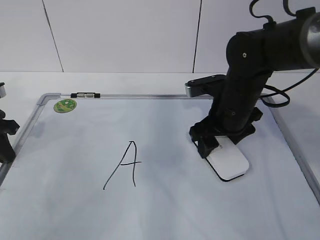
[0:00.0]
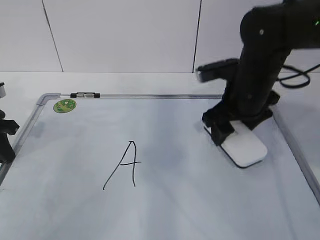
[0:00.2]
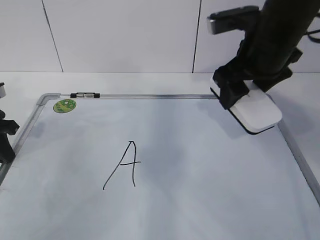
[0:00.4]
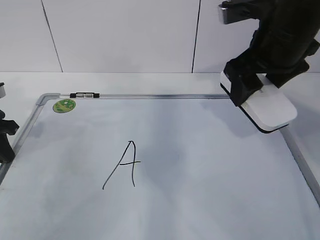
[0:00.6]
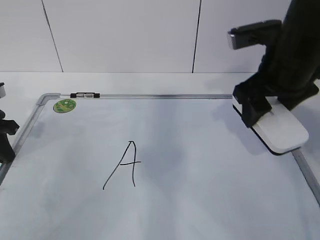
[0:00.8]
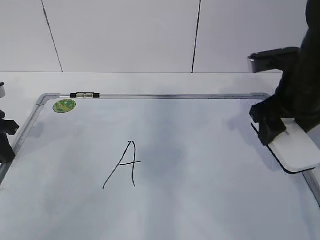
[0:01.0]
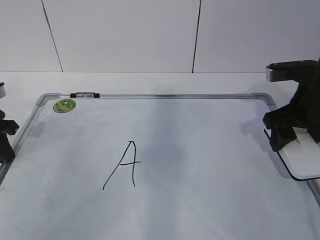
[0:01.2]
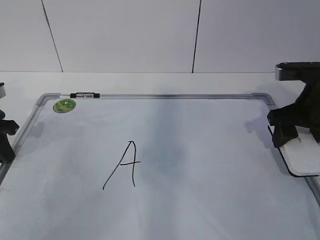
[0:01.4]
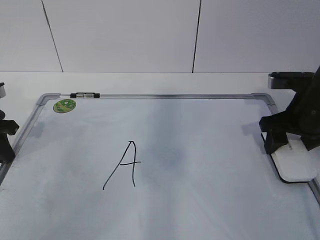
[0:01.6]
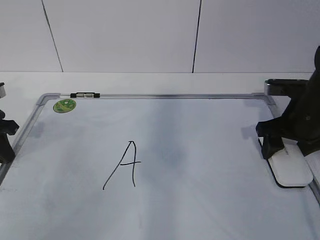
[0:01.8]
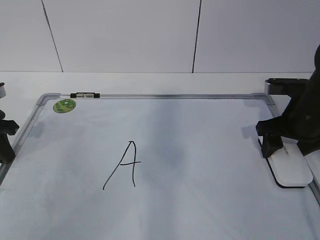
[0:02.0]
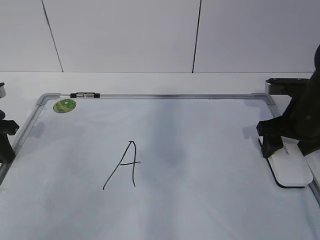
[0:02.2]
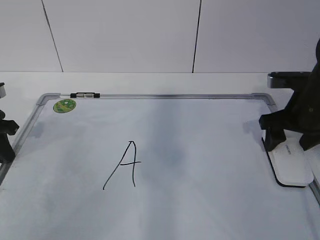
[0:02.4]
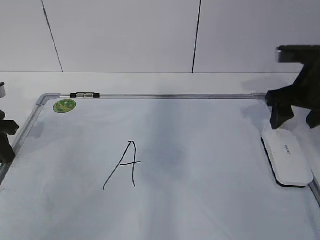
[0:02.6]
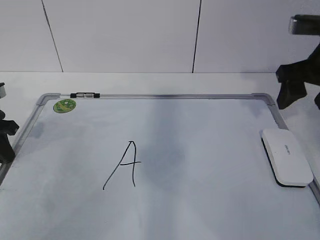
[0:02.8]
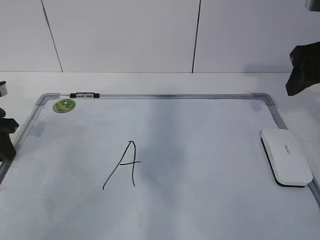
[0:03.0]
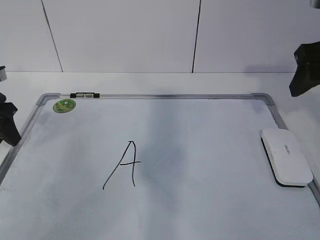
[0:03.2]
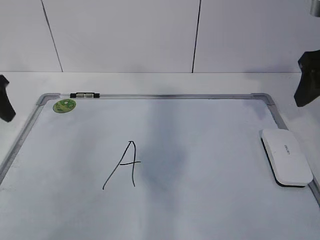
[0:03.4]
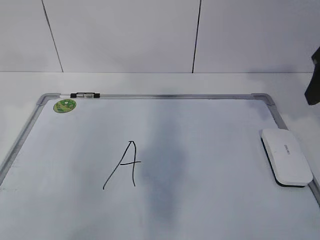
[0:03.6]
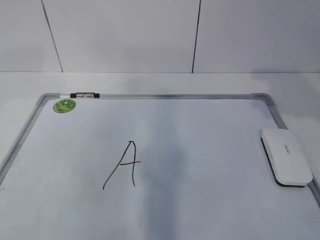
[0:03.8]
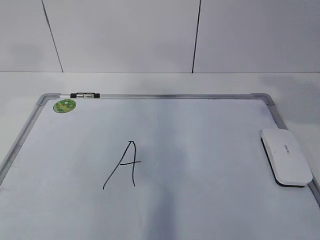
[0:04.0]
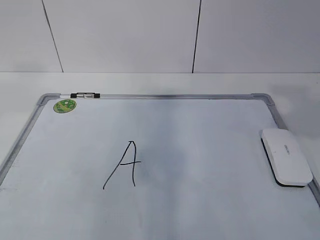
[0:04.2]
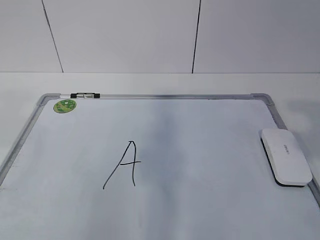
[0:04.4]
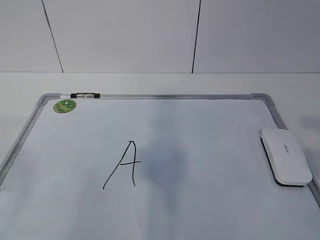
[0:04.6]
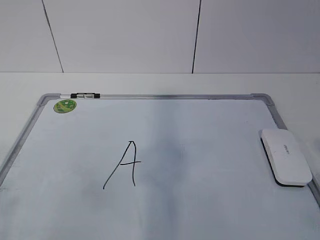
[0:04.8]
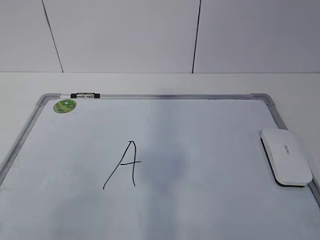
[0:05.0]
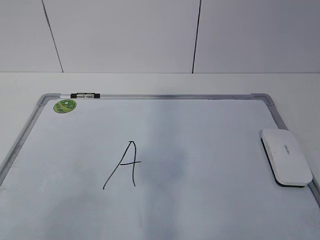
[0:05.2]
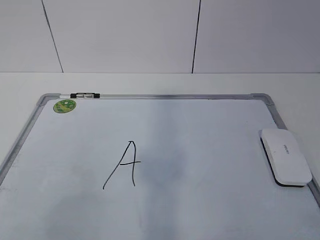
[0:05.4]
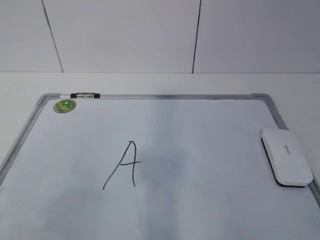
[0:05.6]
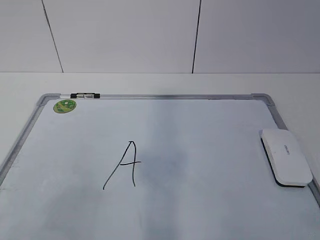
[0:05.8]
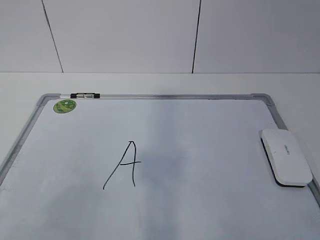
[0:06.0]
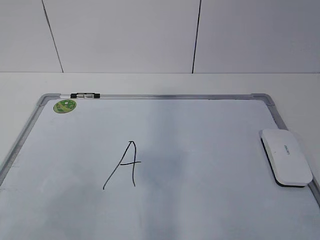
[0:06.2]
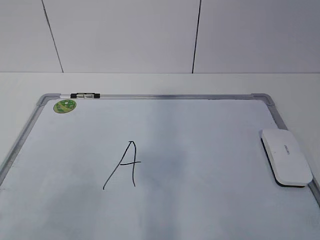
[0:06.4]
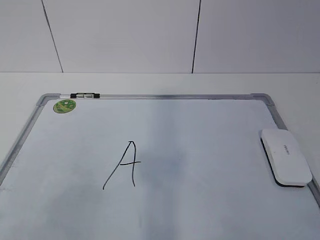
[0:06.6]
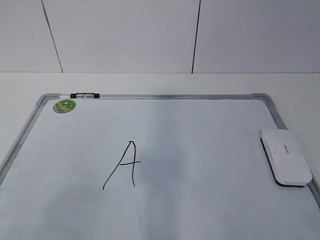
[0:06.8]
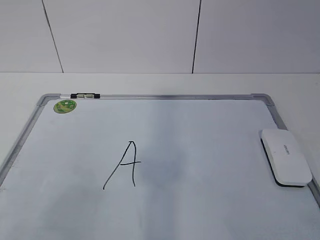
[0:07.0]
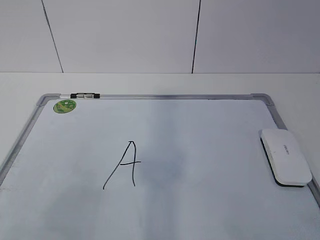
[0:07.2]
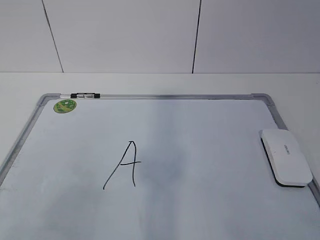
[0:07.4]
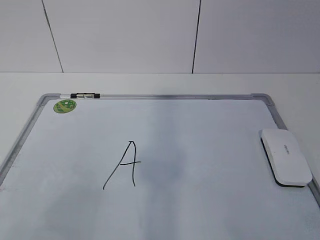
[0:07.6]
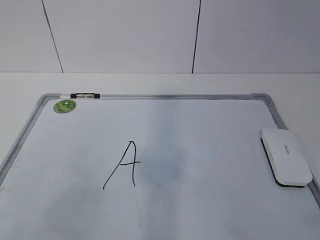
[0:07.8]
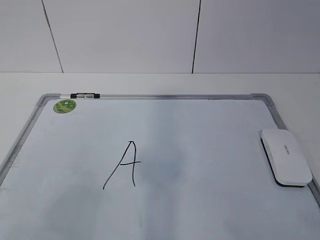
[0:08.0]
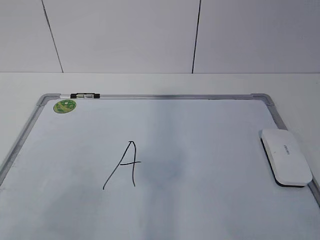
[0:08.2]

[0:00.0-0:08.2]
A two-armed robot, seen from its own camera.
Task of the whole recording: pick up the eraser on the blackboard and erase the letter "a".
0:00.0 to 0:01.6: The right gripper shifts about 10 cm to the right, and goes upward and returns, roughly 15 cm each way.
0:01.6 to 0:03.2: The right gripper travels upward by roughly 15 cm, and opens its fingers; the left gripper opens up.
0:03.2 to 0:05.0: Both grippers move backward, some 30 cm.

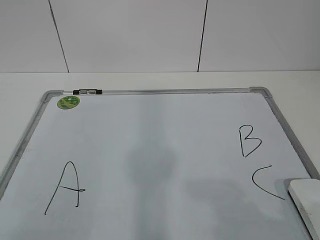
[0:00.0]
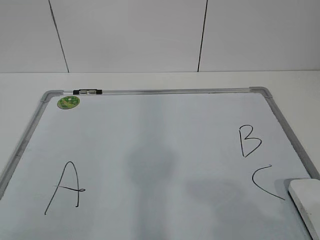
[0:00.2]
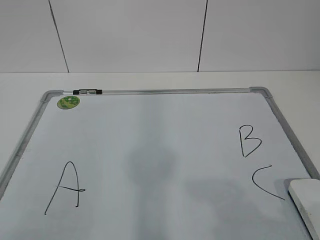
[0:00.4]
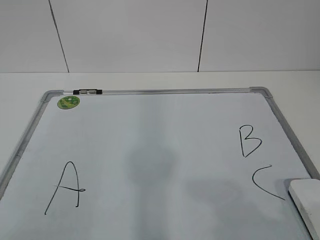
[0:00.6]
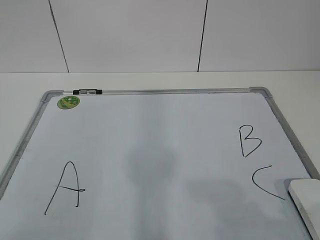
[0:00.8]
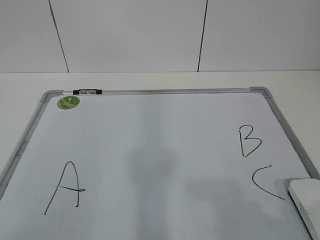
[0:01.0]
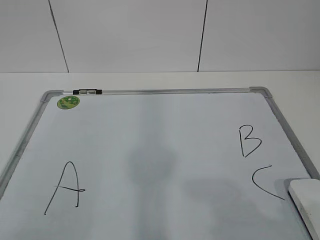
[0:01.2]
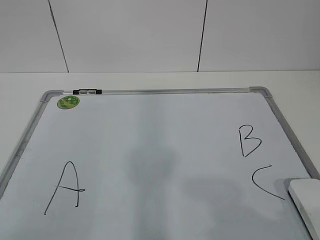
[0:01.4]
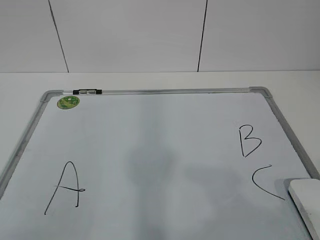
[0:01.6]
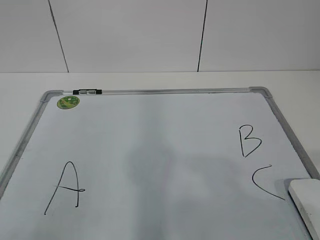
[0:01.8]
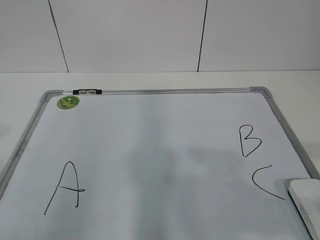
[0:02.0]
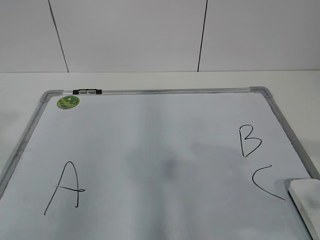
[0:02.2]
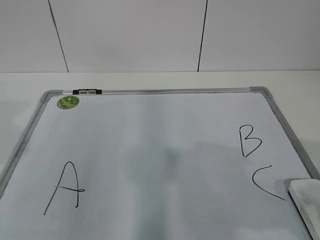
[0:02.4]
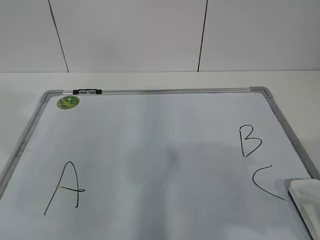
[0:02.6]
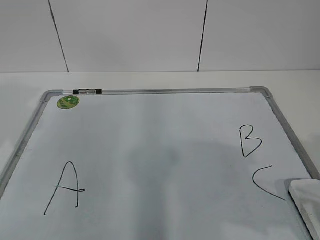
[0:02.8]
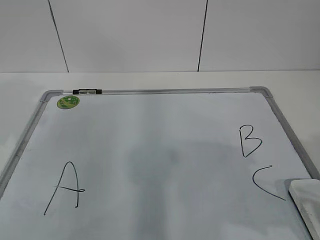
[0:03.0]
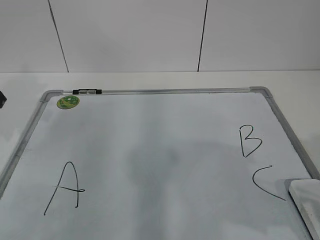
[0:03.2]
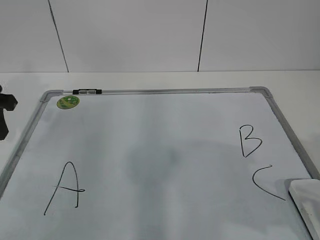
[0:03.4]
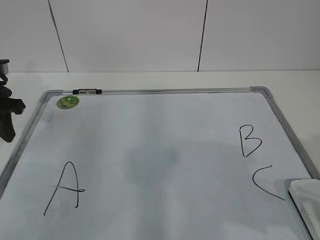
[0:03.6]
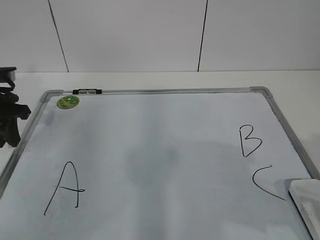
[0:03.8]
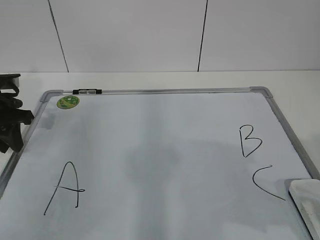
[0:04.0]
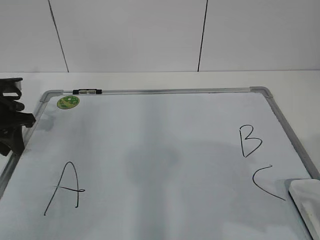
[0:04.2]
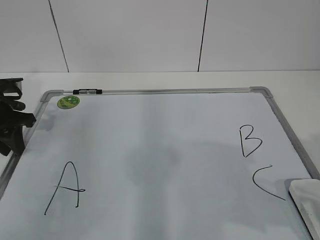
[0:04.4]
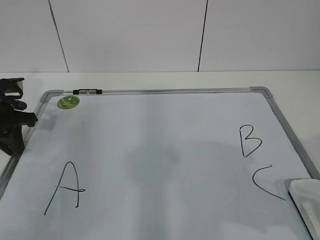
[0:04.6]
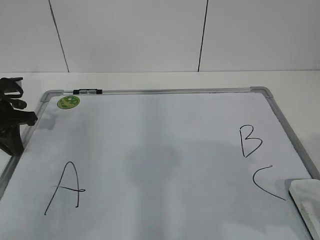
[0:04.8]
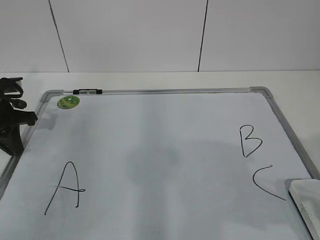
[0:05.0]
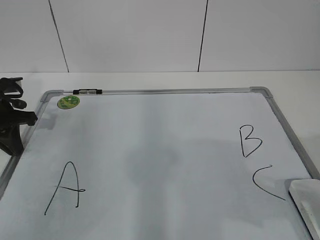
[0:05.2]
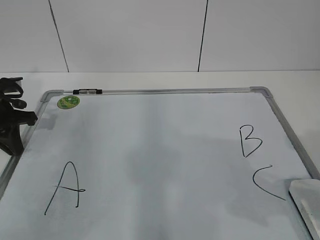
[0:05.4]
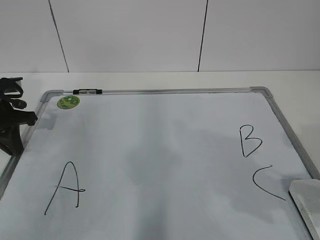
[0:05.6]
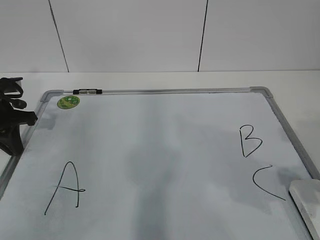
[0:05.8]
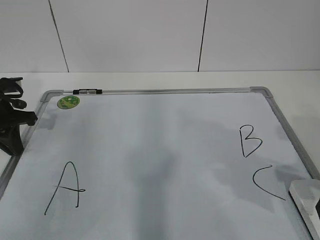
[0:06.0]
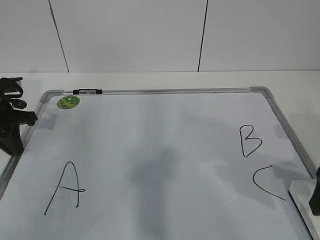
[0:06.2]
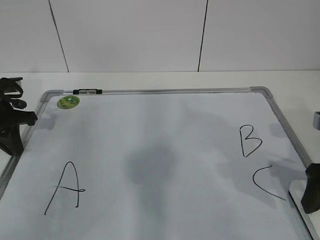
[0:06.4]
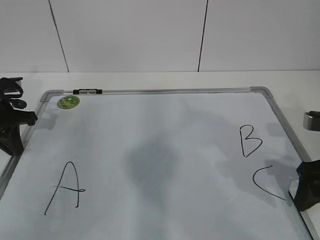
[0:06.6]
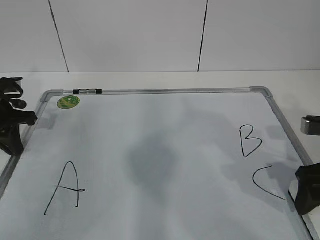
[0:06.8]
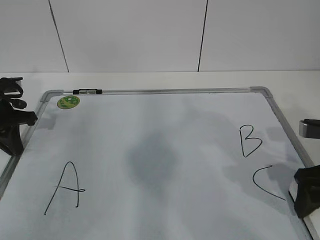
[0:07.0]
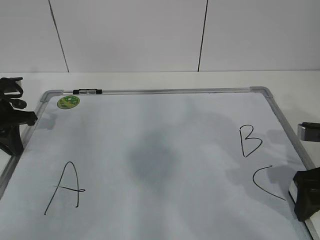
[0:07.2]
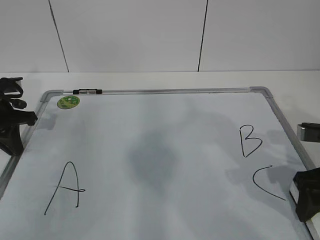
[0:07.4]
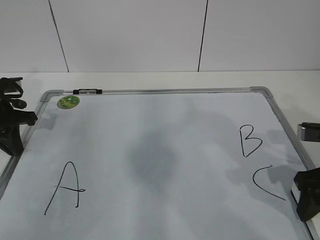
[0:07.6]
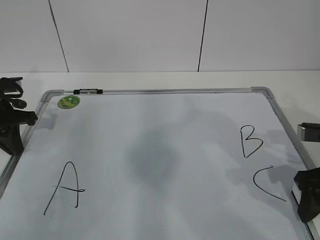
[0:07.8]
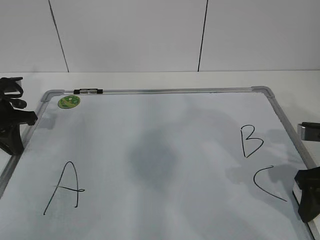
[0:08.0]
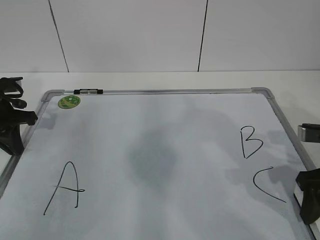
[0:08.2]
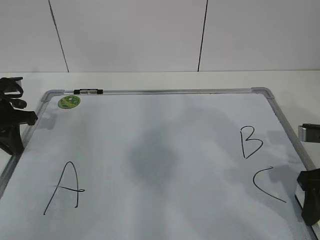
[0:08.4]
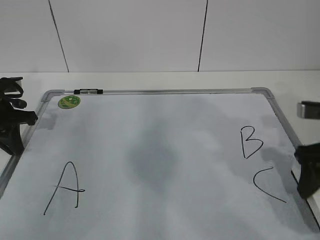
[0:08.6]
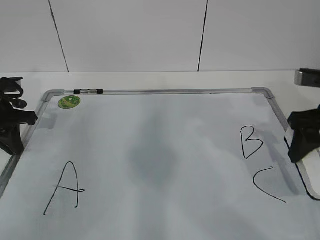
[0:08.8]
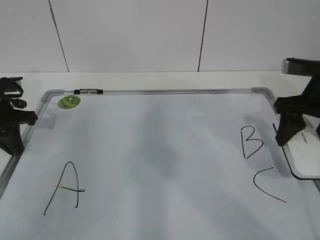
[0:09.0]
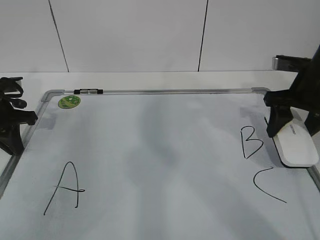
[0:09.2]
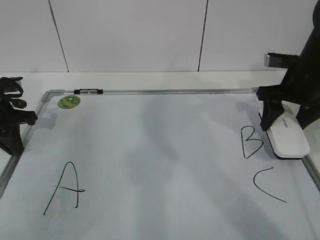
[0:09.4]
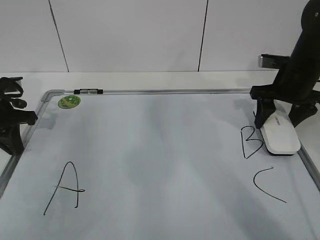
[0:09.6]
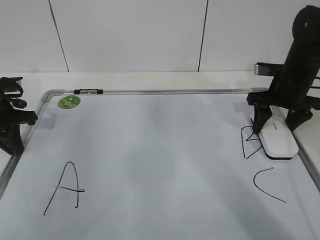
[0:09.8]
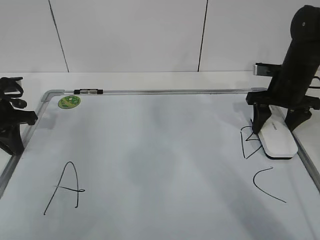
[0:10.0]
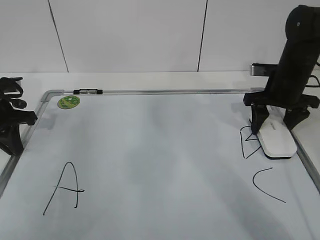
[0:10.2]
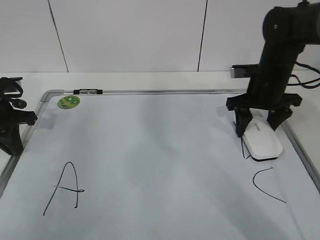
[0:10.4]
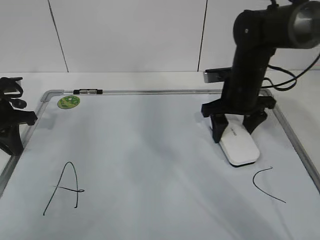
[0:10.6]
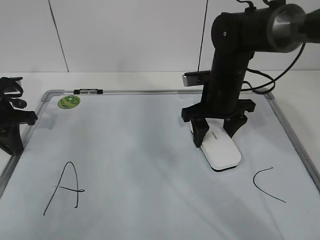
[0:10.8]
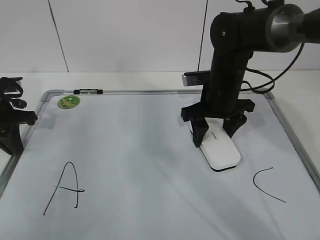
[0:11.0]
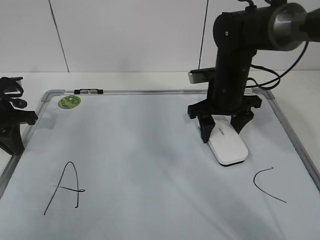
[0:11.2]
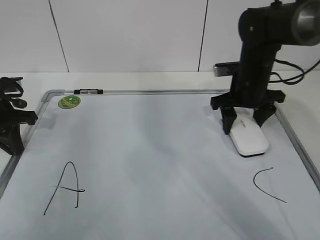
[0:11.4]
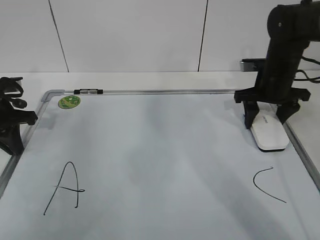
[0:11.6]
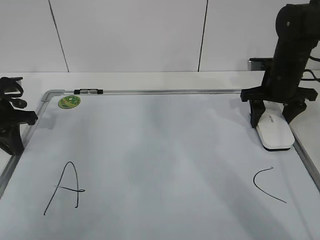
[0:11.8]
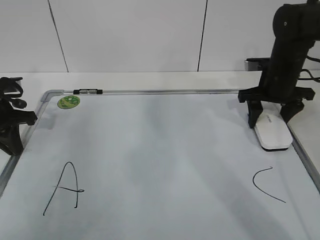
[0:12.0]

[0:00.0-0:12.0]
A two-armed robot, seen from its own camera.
Task of the whole recording: pick up the eraser on the blackboard and erase the letter "B".
Step, 0:00.0 to 0:03.8: Hold the drawing board steady with your left hand.
Step, 0:06.2 to 0:11.0: Erase the letter B with your right hand.
0:01.6 to 0:03.0: The right gripper travels forward by roughly 10 cm.
0:03.0 to 0:04.4: The left gripper heads downward and forward, covering about 15 cm.
0:04.4 to 0:06.0: The right gripper heads forward, covering about 5 cm, and opens, while the left gripper closes.
0:06.0 to 0:07.6: The right gripper changes place by roughly 5 cm, and closes up.
0:07.6 to 0:09.0: The right gripper heads forward and upward, covering approximately 10 cm.
0:09.0 to 0:10.4: The right gripper travels forward, downward and to the left by about 10 cm.
0:10.4 to 0:12.0: The right gripper reaches approximately 10 cm to the left, then returns.

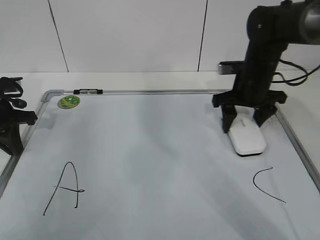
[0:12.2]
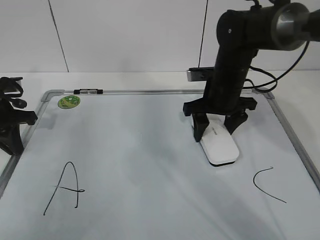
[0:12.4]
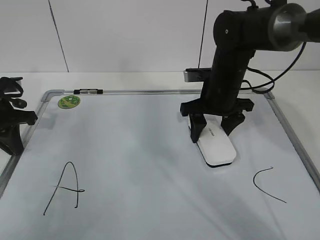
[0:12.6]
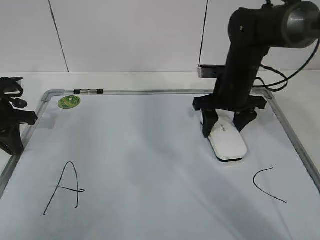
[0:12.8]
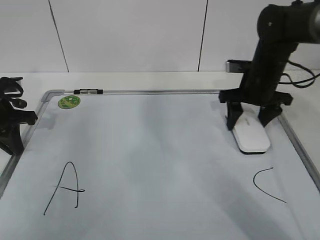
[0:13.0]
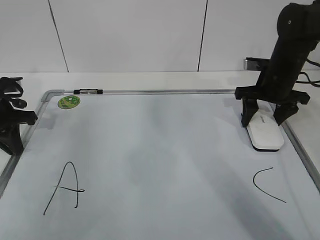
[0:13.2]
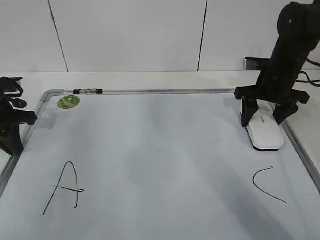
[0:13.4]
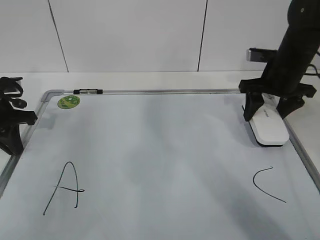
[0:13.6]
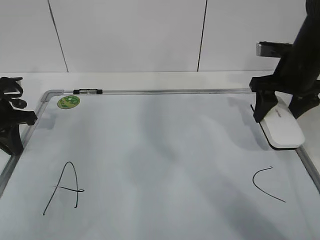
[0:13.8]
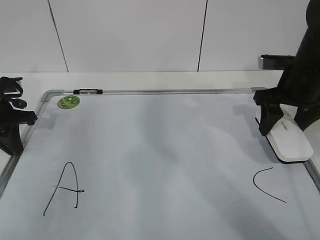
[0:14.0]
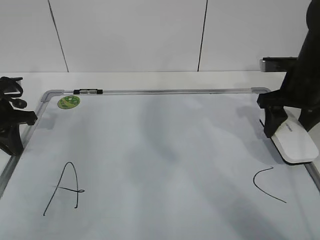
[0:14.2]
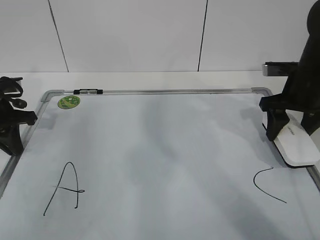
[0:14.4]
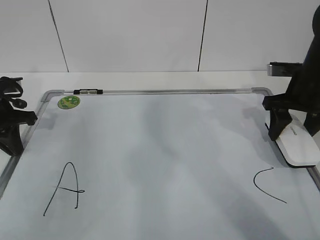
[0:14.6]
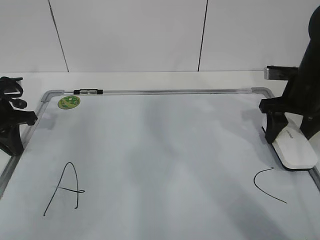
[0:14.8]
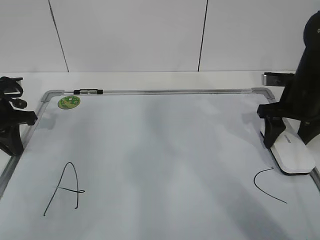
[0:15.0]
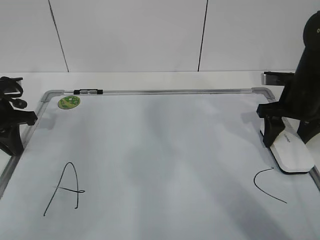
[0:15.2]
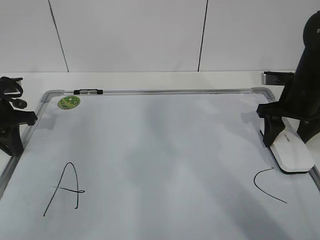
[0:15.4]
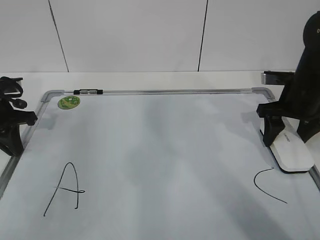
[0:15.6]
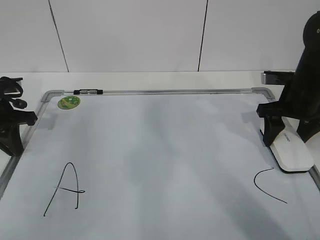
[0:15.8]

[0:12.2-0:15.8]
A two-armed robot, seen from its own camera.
Task of the whole recording: pick up the eraser on the blackboard and erase the letter "B".
Step, 0:12.2 to 0:13.4: Put down the eraser with your right hand.
0:12.2 to 0:14.0: The right gripper travels to the right by approximately 5 cm.
0:14.0 to 0:15.8: The grippers stay close to where they were, moving slightly.
